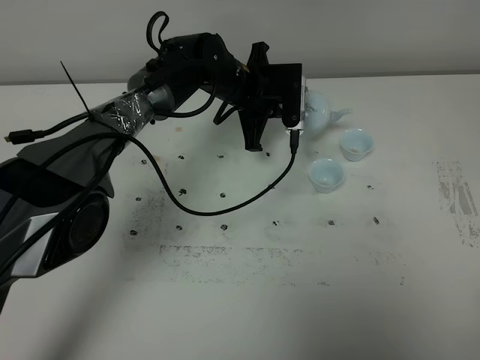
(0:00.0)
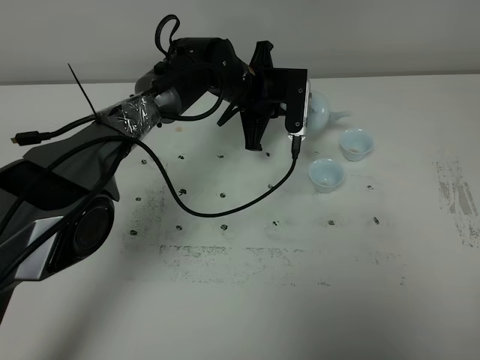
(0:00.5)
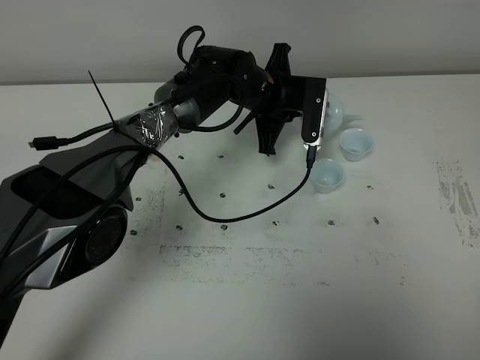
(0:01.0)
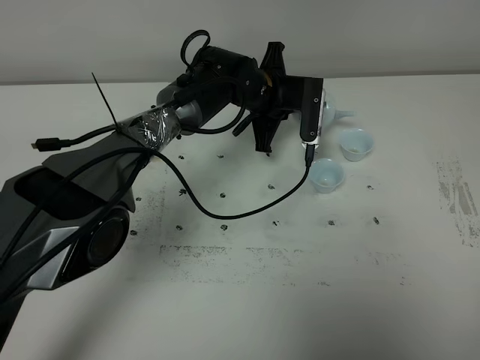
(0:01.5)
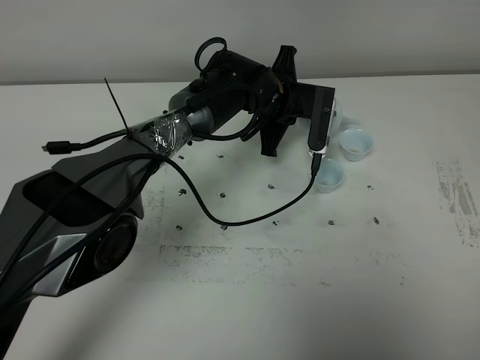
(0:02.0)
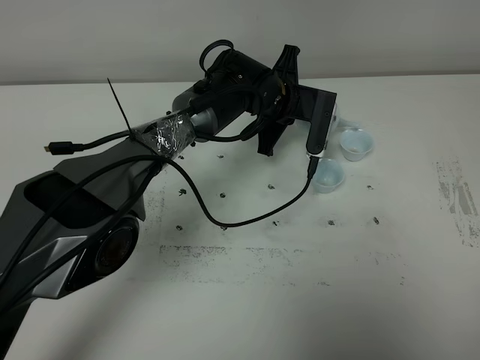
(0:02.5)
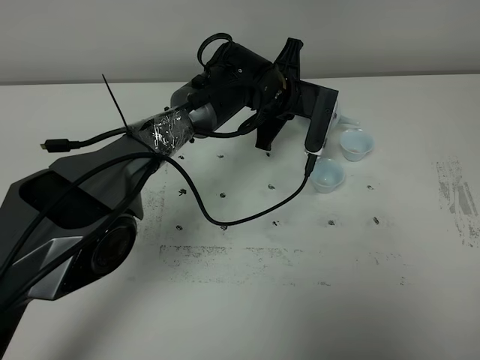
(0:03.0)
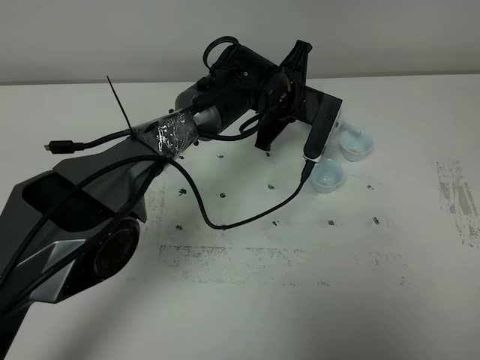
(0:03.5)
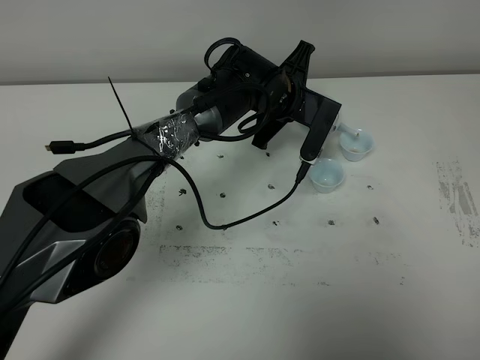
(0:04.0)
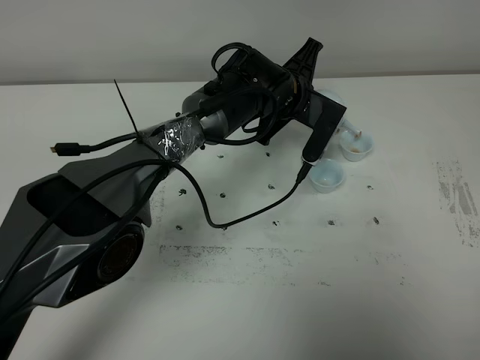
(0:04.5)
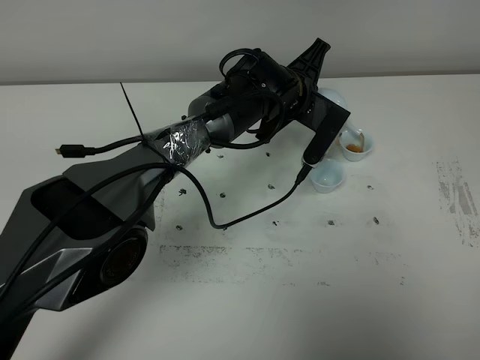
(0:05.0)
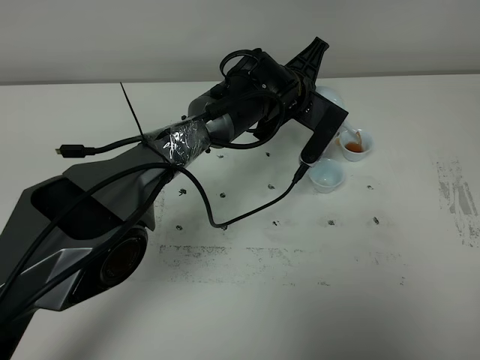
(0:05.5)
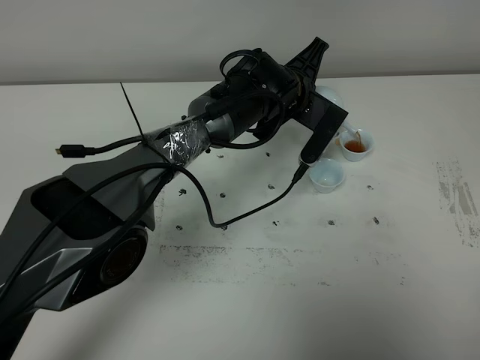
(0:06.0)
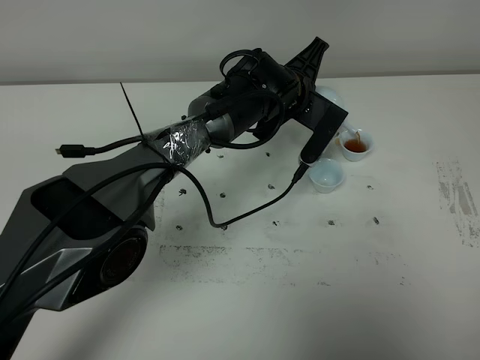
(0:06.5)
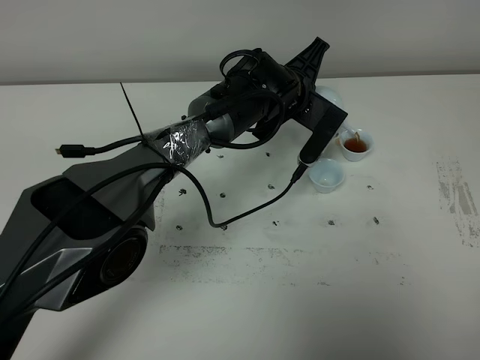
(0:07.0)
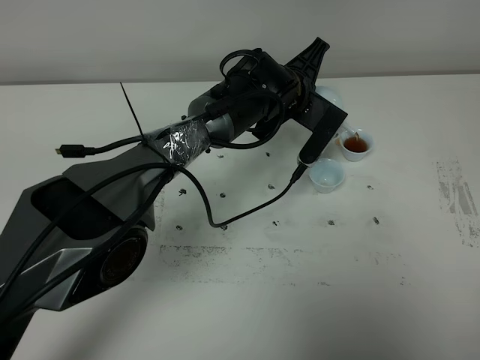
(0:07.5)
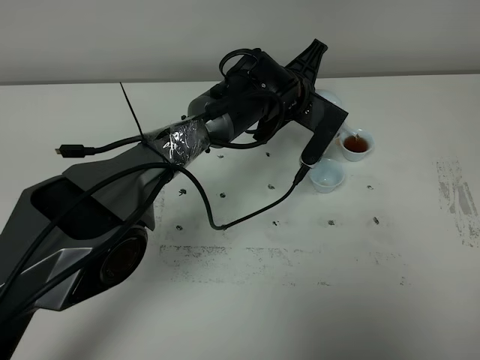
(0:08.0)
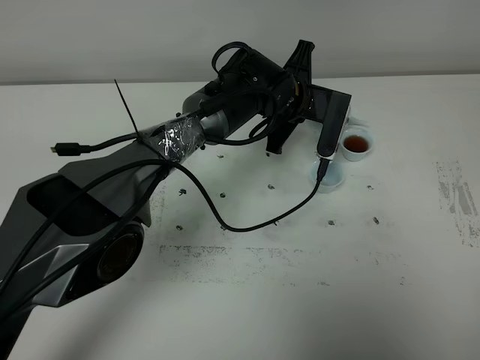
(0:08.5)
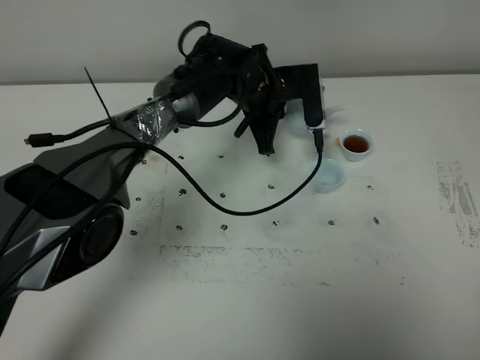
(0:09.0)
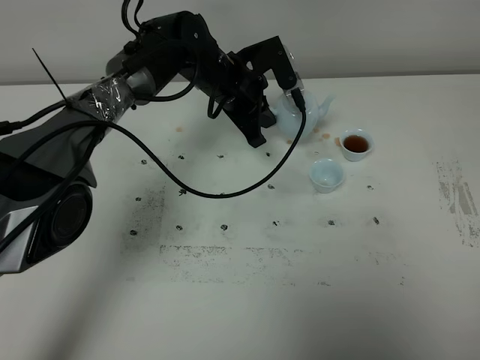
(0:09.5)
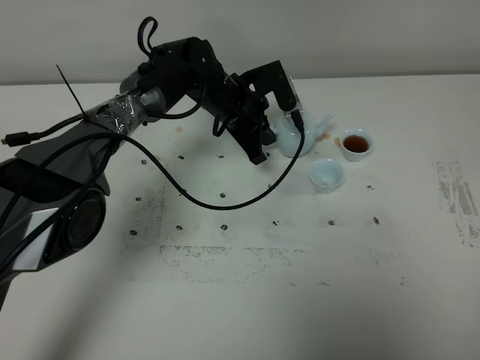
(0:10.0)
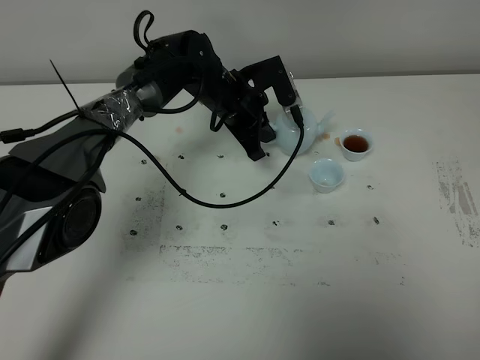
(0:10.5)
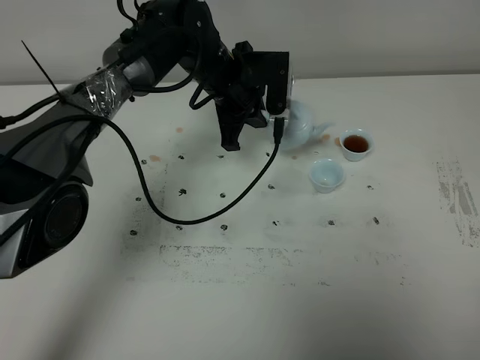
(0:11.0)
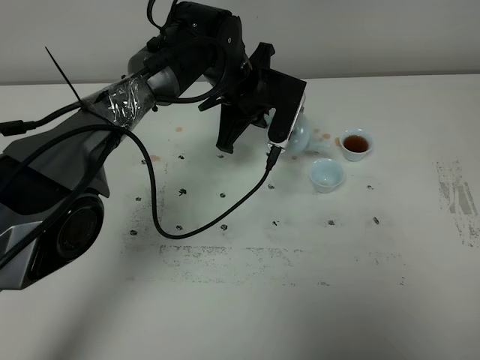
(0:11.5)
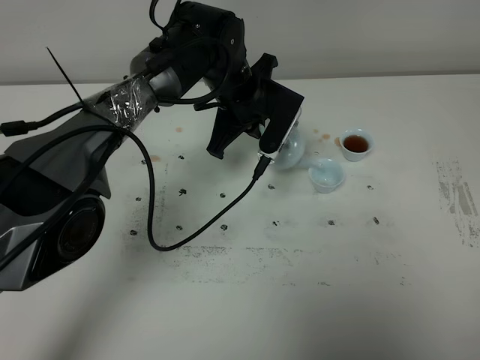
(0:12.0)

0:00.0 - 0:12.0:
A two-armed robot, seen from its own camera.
Task of the whole recording: grasp the blue porcelain teapot and pour the tea into the two blue porcelain teacups one by one, put the blue porcelain teapot back in its original place.
Step, 0:00.0 - 0:08.5: Pour tea into the teacup with the left gripper.
0:02.0 - 0:04.0: The grippers move only a little.
0:04.0 - 0:06.0: The grippers move only a little.
0:06.0 - 0:08.0: Both grippers stay put.
0:08.0 - 0:10.0: The left gripper goes some 10 cm to the left.
0:10.0 - 0:12.0: The left gripper moves upward, roughly 5 cm.

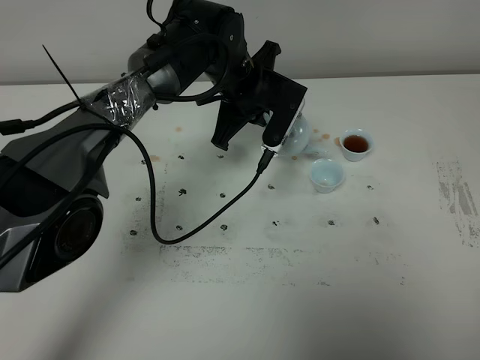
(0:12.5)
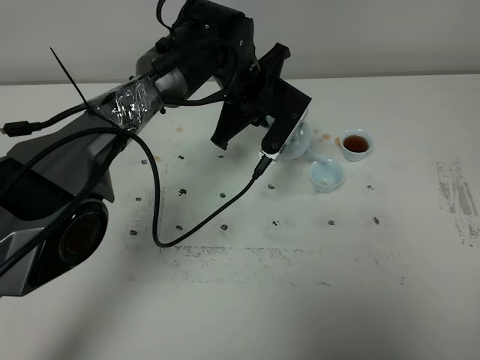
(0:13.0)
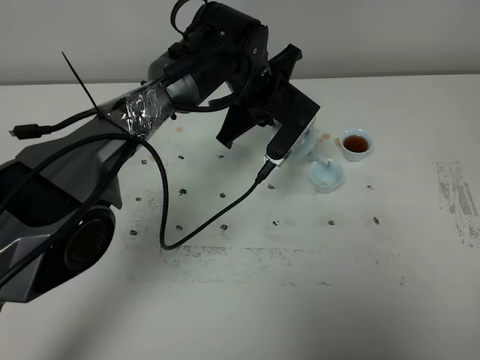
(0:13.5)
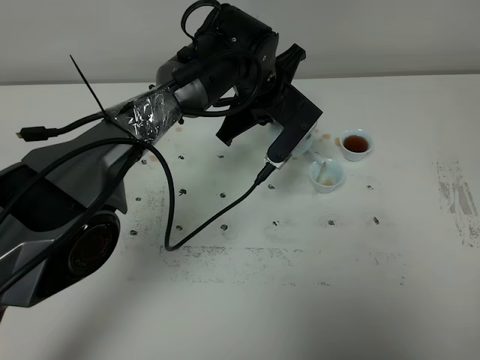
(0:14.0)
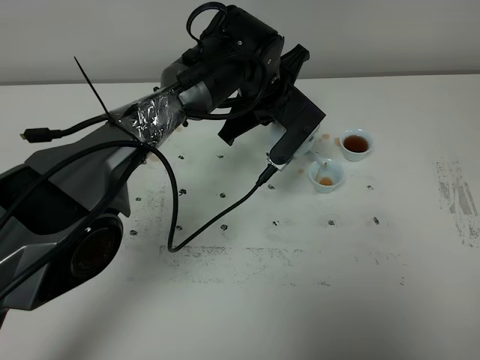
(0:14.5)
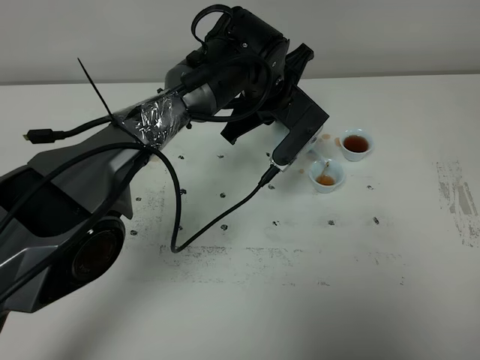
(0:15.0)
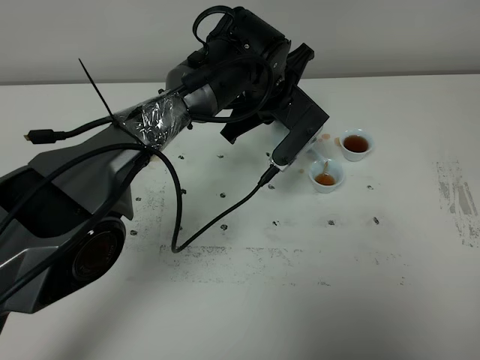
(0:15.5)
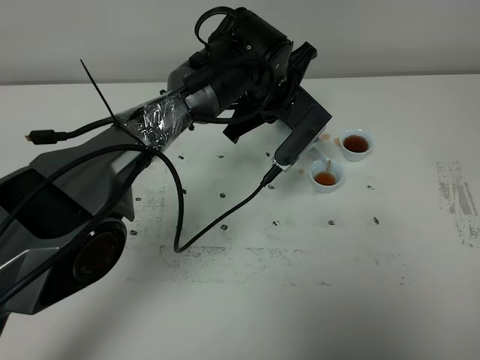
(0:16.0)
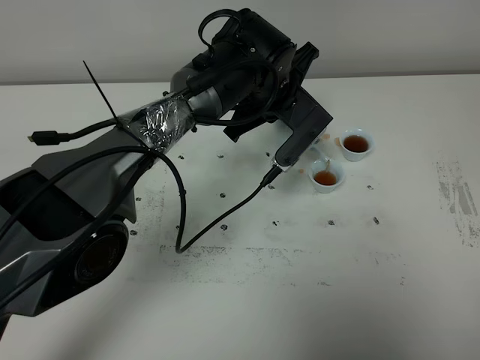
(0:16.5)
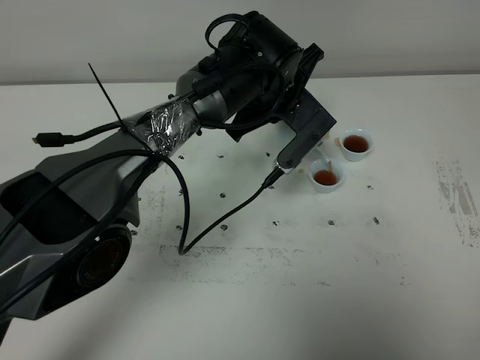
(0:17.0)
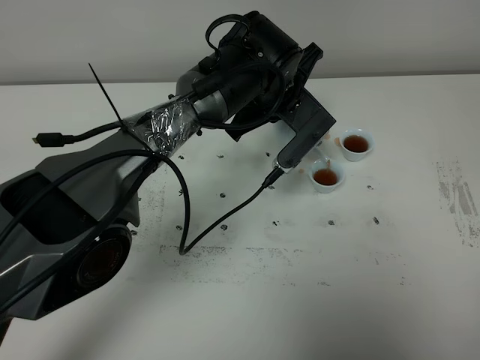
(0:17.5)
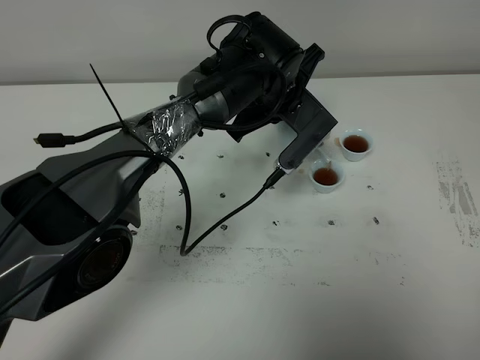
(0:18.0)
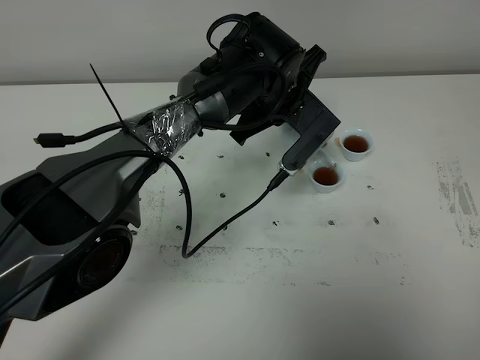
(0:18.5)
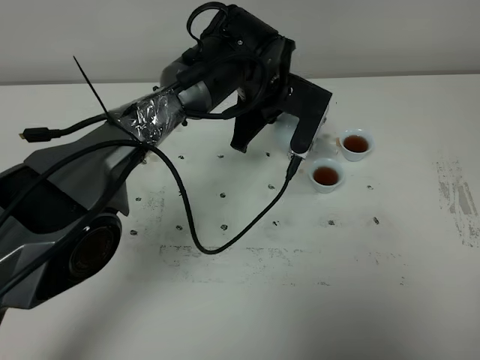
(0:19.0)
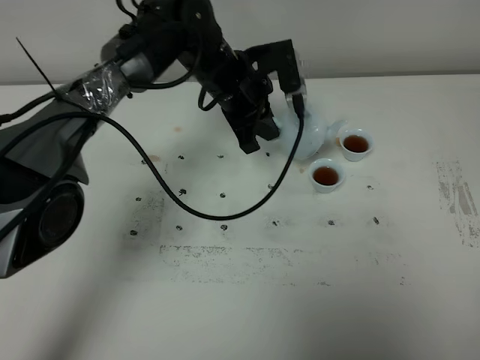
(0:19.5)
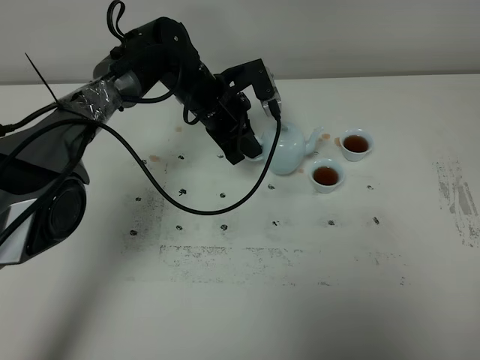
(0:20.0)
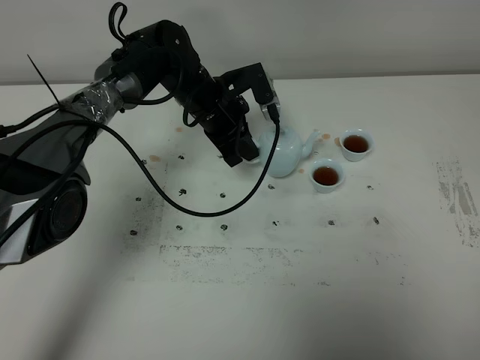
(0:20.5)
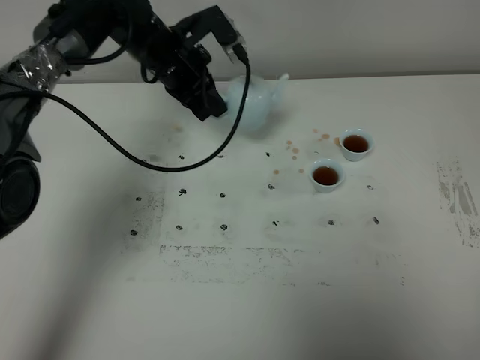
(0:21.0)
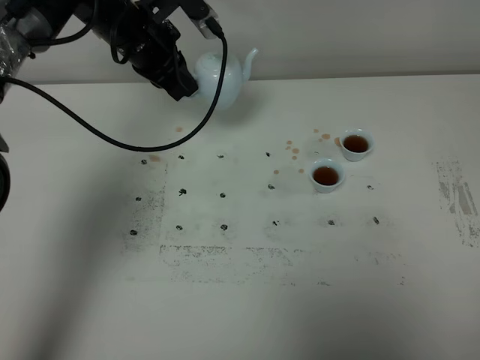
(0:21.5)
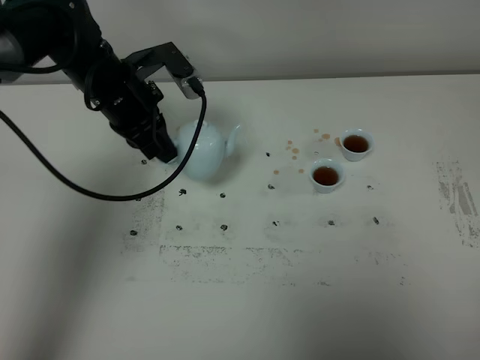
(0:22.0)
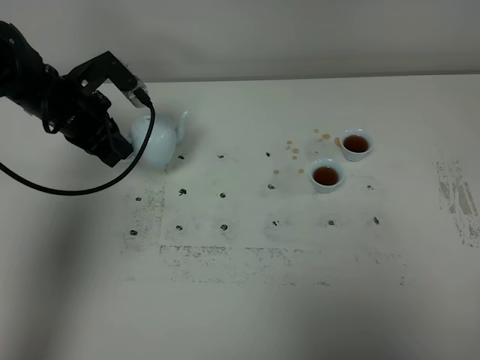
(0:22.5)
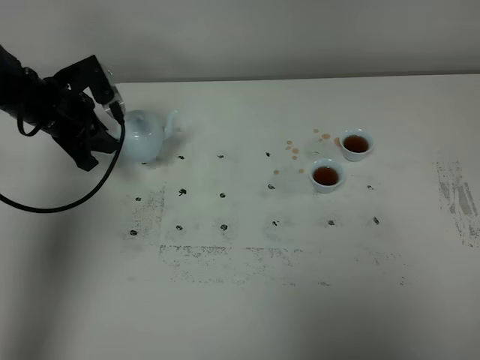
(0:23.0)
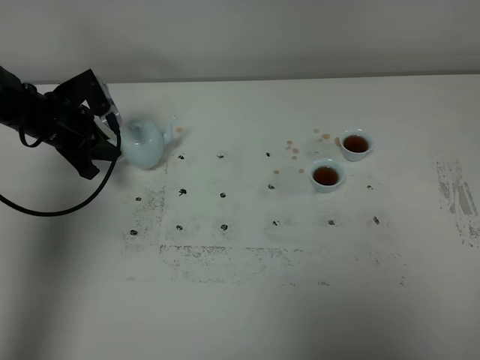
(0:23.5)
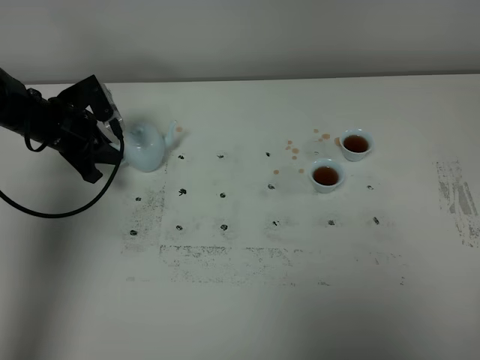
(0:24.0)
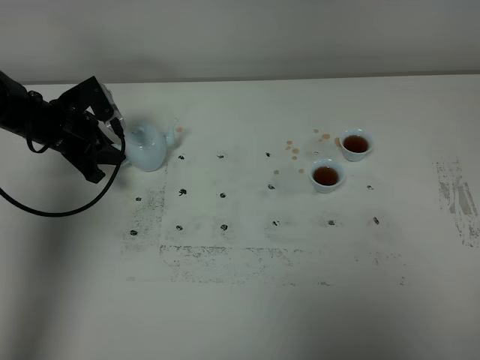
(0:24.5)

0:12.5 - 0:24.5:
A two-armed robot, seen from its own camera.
Task of the whole recording: grasp the blue porcelain teapot and pour the tea into the two blue porcelain teacups one by one, put the blue porcelain teapot back in its original place.
Step, 0:12.5 - 0:19.0: Pour tea into the teacup with the left gripper.
0:12.5 - 0:14.5: The grippers stay close to where they were, moving slightly.
0:14.5 - 0:16.5: The two grippers keep their place.
0:16.5 - 0:18.5: Both grippers stay about where they are.
0:18.5 - 0:20.5: The left gripper moves to the left, downward and forward, approximately 15 cm.
0:20.5 - 0:22.5: The left gripper travels to the left by approximately 20 cm.
0:22.5 - 0:24.5: The left gripper shifts some 5 cm downward.

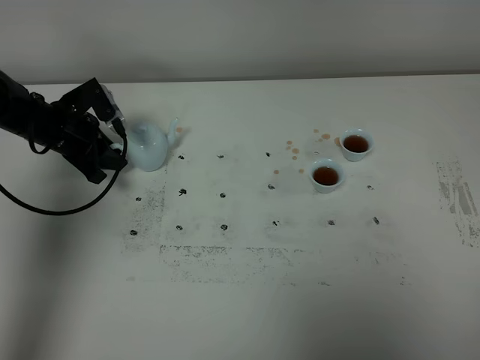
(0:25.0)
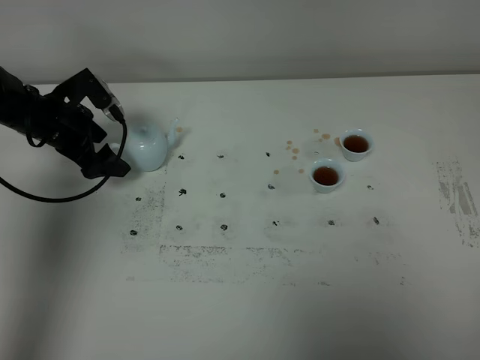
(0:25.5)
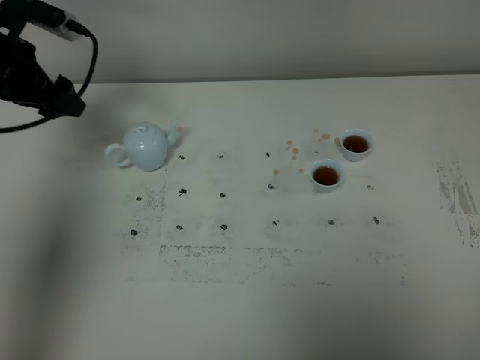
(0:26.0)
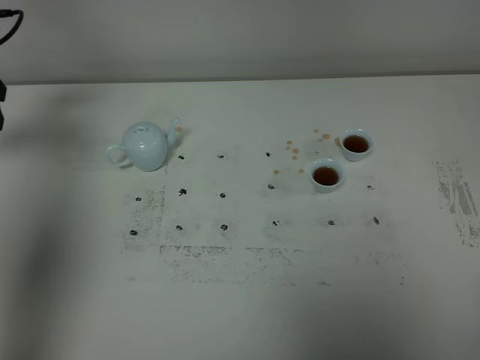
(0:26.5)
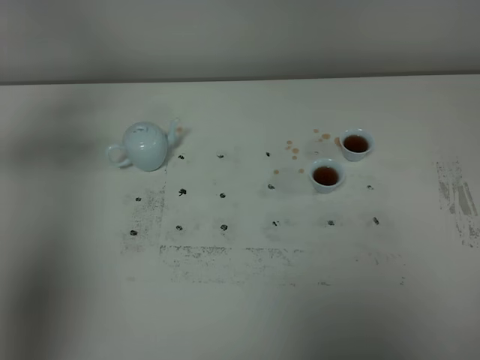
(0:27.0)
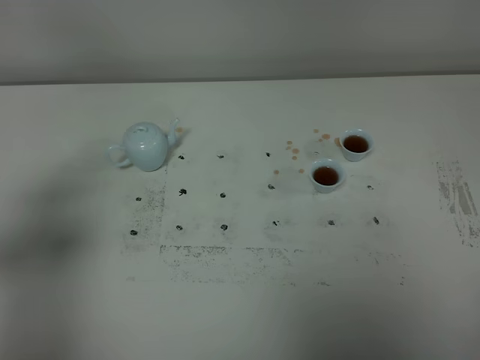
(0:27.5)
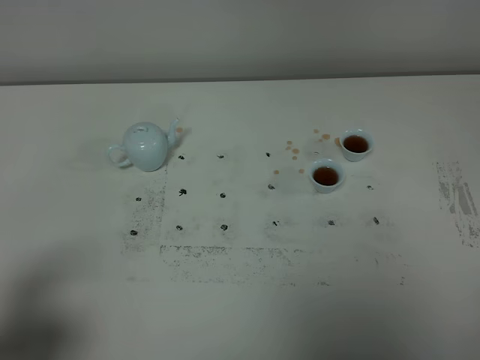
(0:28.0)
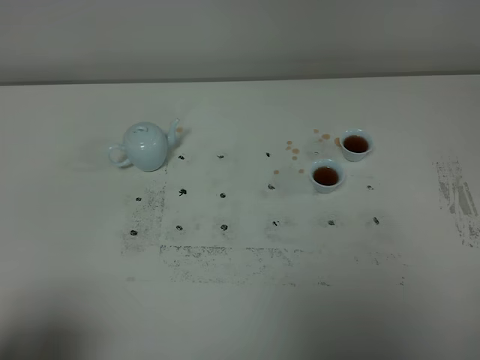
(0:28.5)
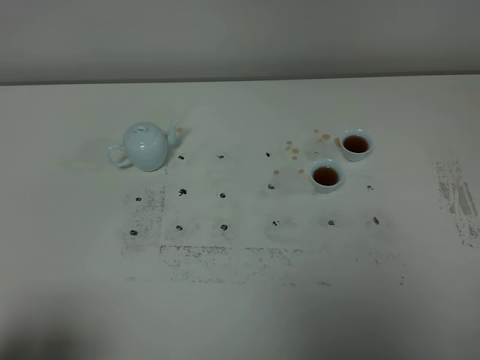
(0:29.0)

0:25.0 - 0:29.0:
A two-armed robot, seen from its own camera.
Task of the whole recording: grasp the blue porcelain teapot and pour the tea into the two blue porcelain teacups one by one, put the blue porcelain teapot back in its original place.
0:25.0 - 0:27.0: The left gripper heads upward and backward, covering about 25 cm, and opens its fingers.
0:27.0 - 0:29.0: The left gripper goes some 35 cm backward.
